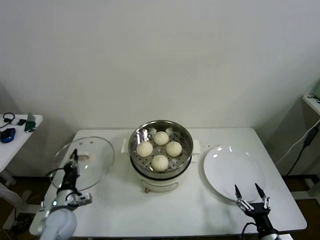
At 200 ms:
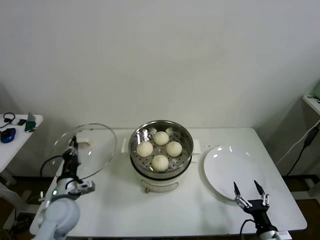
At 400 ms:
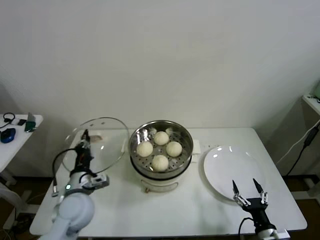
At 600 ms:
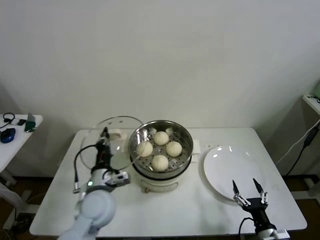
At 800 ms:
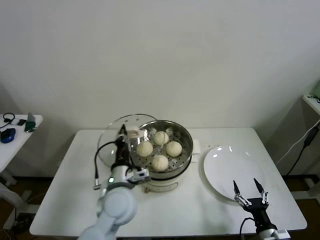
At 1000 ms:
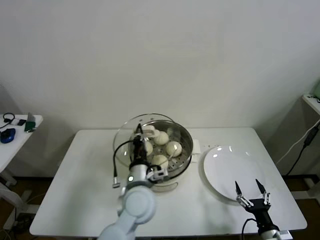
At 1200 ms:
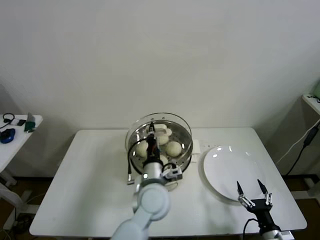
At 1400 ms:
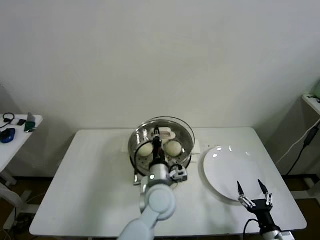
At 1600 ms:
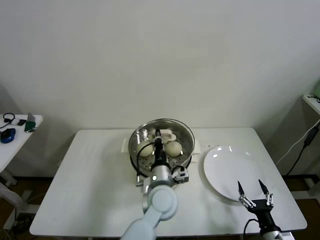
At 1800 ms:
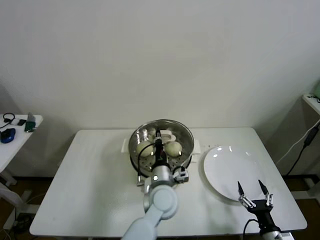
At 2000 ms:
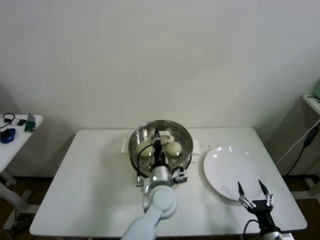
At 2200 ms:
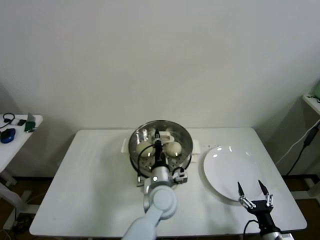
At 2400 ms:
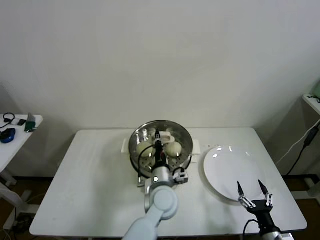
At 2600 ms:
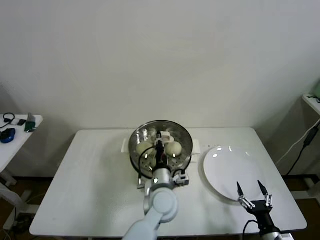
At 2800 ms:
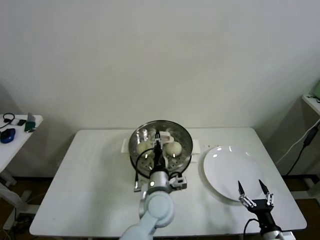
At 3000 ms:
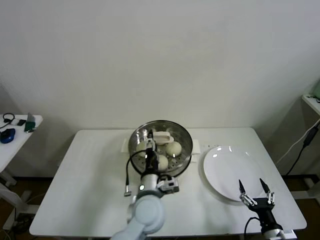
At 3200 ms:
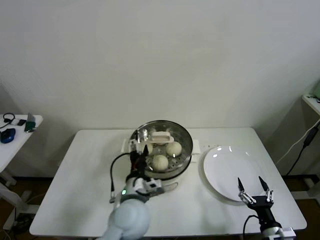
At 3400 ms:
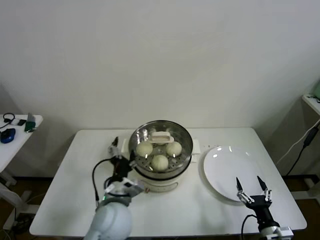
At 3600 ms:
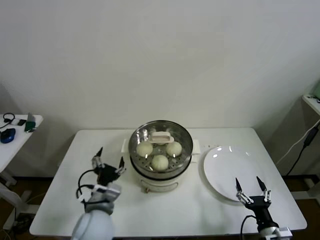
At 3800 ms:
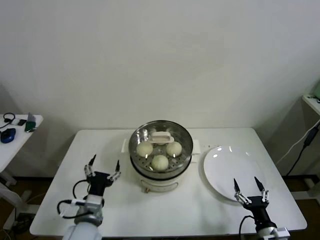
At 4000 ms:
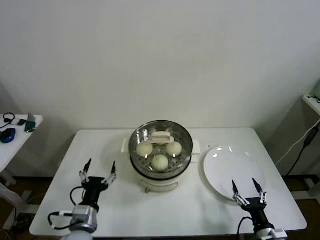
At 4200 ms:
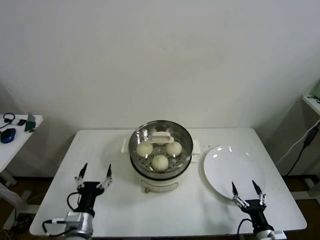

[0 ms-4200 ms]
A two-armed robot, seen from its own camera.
Step, 0 ms to 2400 ms: Place the pot lid on the steamer with left gripper.
0 ms to 1400 ms: The left gripper goes some 35 cm to the right and upward.
1400 ms to 2800 ms: There are only small adjustments of the grippers.
2800 ms to 4200 ms: The left gripper goes roughly 25 cm to the left and backward, and opens its fingers.
